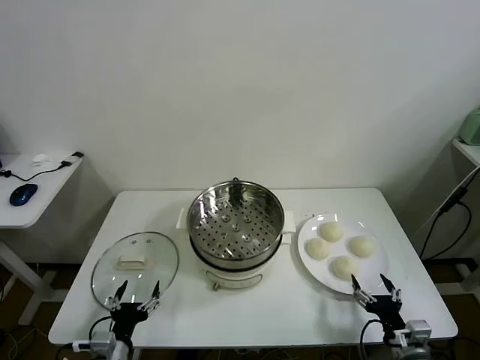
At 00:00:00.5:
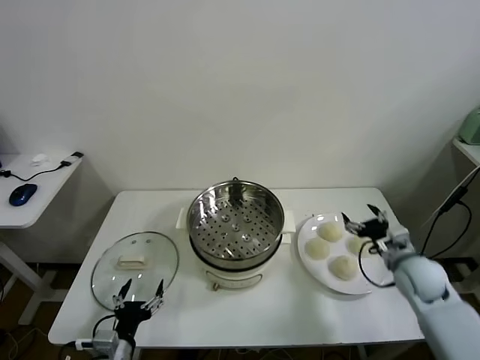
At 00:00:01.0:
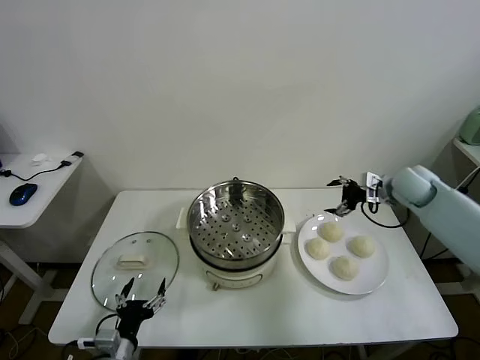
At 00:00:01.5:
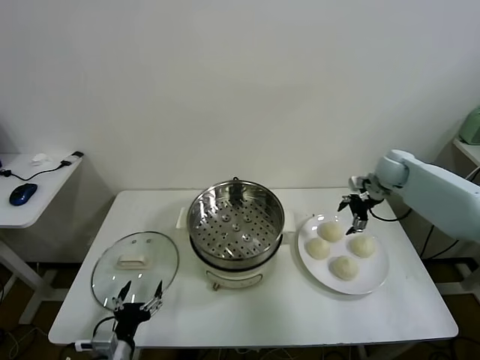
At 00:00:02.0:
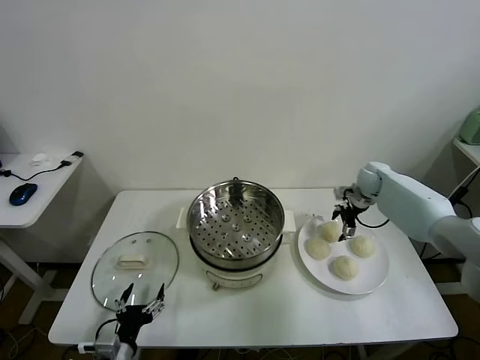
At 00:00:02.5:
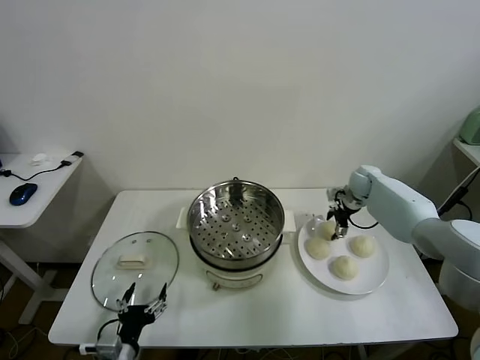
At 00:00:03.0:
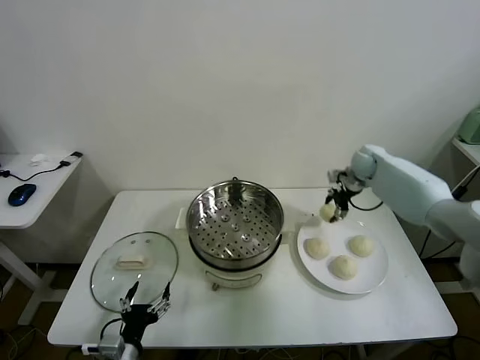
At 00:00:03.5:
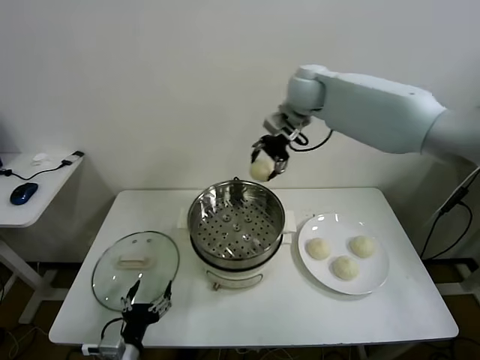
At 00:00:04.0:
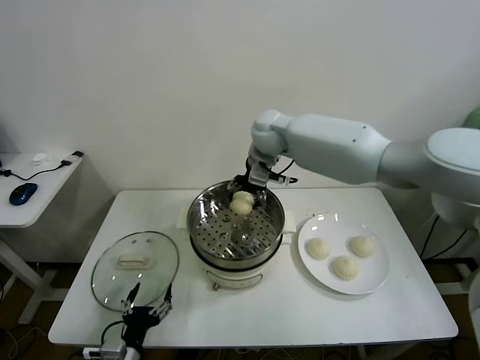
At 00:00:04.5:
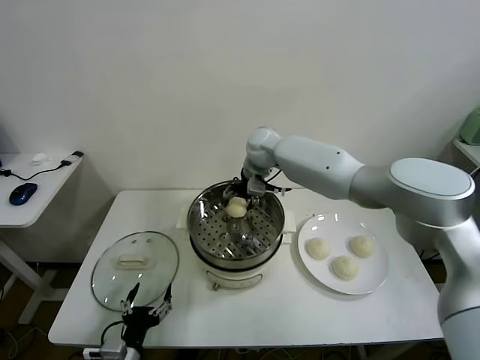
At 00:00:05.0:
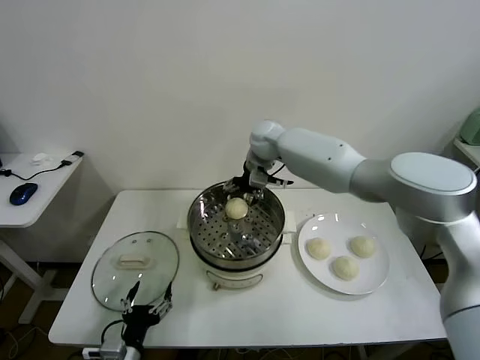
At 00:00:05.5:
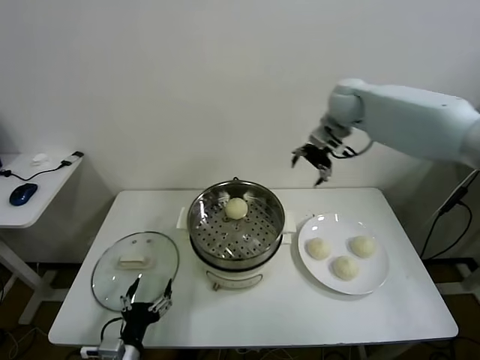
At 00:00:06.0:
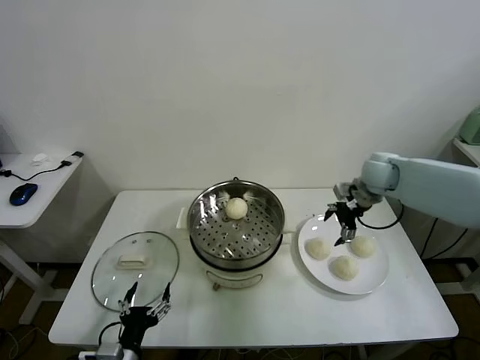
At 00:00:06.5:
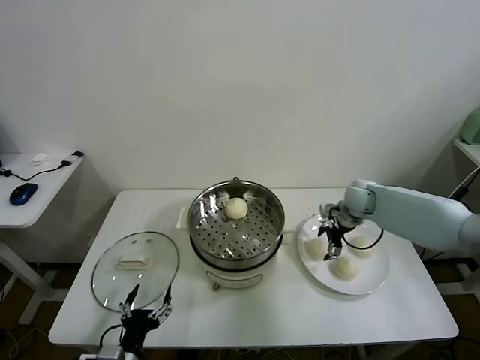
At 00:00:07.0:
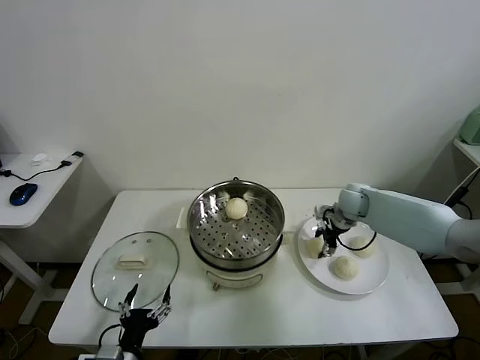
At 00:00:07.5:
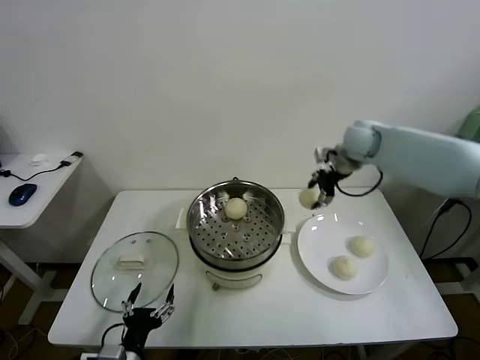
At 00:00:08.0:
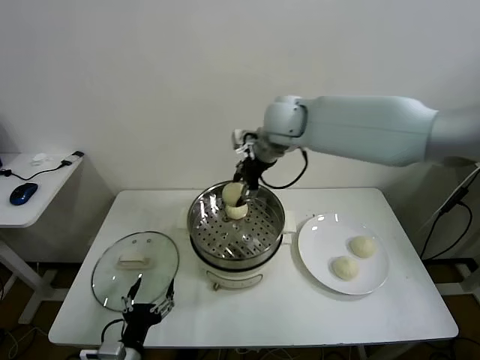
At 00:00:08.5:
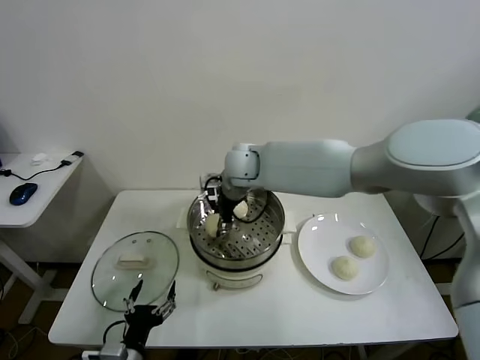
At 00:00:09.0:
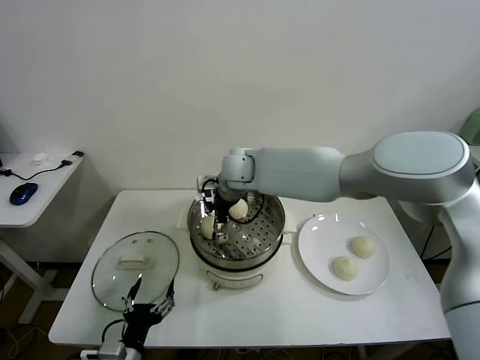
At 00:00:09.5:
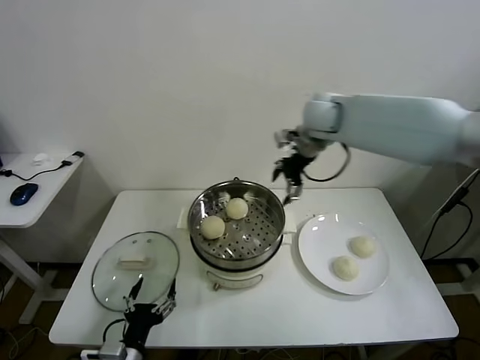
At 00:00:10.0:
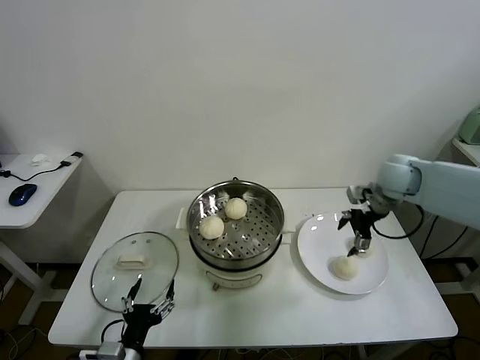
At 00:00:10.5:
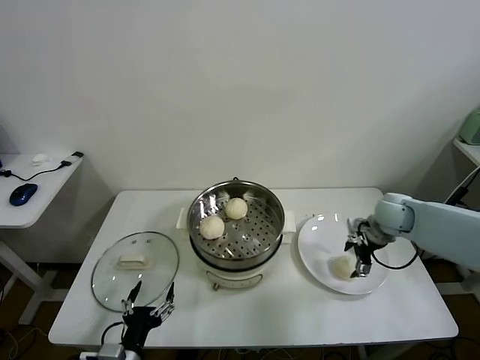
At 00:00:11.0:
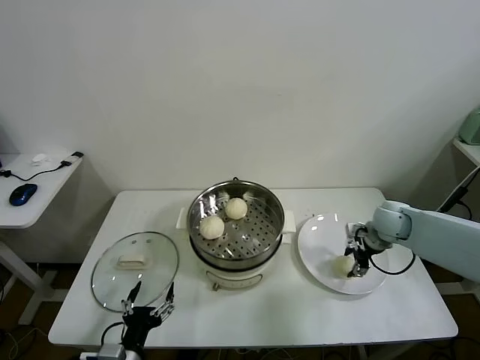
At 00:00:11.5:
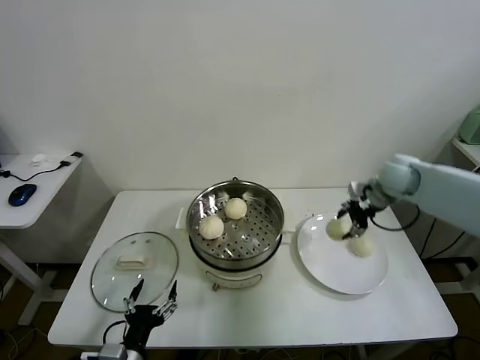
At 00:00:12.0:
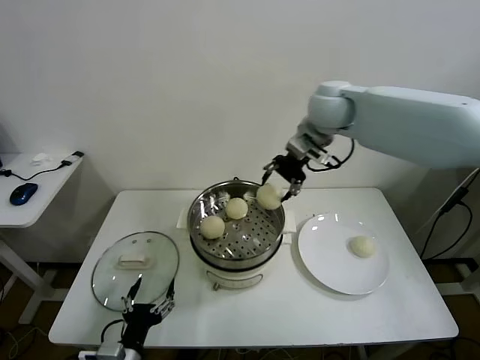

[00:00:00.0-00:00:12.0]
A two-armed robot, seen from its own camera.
Task of the whole recording: take steamed baozi put them in steamer.
Step, 00:00:00.0 to 00:00:02.5: Grasp the baozi in the plate with right gripper.
Step, 00:00:03.0 to 00:00:04.5: Place the baozi on the steamer with right gripper.
Step, 00:00:05.5 to 00:00:06.5: Grasp the baozi in the plate with right gripper.
Step, 00:00:07.5 to 00:00:09.0: Place the baozi on the steamer with right gripper.
Step, 00:00:09.5 to 00:00:11.0: Grasp the baozi in the plate with right gripper.
00:00:02.0 to 00:00:04.0: The right gripper is displaced to the left and upward by about 35 cm, and closes up.
00:00:04.0 to 00:00:06.0: The right gripper moves to the right, roughly 25 cm, and opens up.
00:00:06.0 to 00:00:08.0: The right gripper travels to the left and upward by some 30 cm, and closes its fingers.
00:00:08.0 to 00:00:10.0: The right gripper is displaced to the right and downward by approximately 30 cm, and opens.
00:00:10.0 to 00:00:12.0: The right gripper travels to the left and upward by roughly 25 cm, and closes up.

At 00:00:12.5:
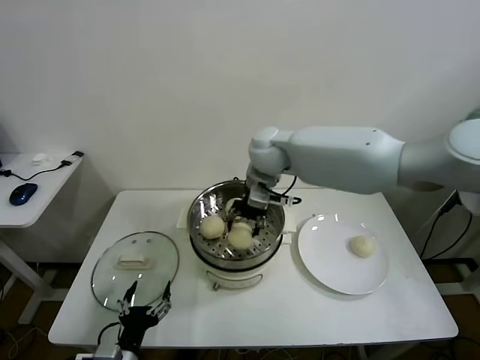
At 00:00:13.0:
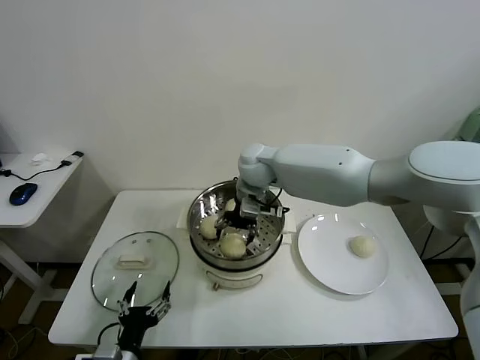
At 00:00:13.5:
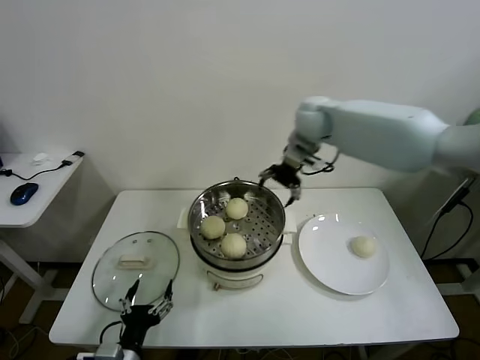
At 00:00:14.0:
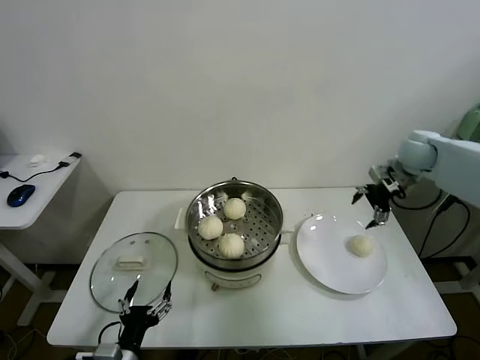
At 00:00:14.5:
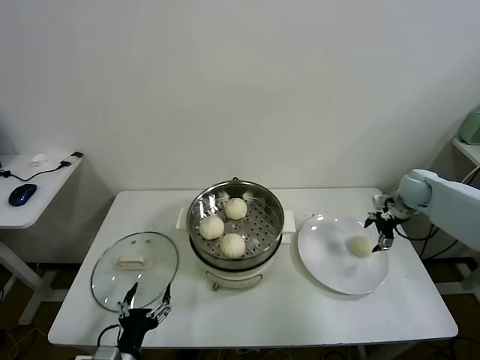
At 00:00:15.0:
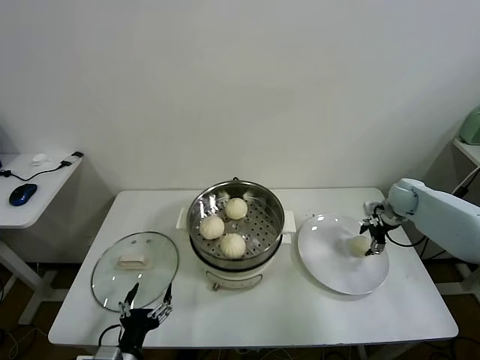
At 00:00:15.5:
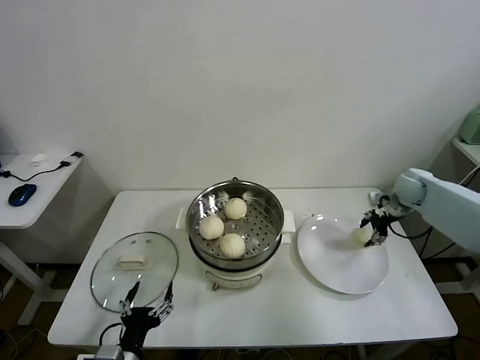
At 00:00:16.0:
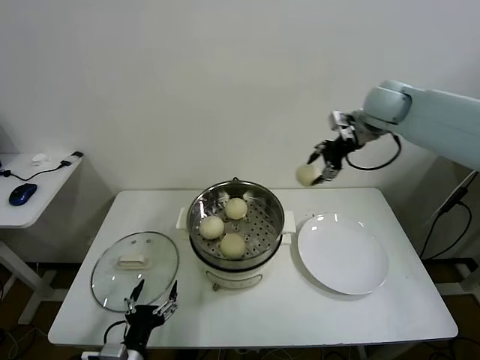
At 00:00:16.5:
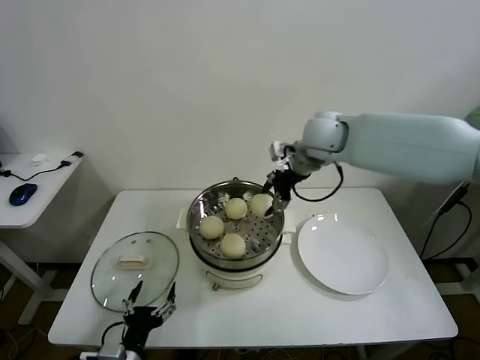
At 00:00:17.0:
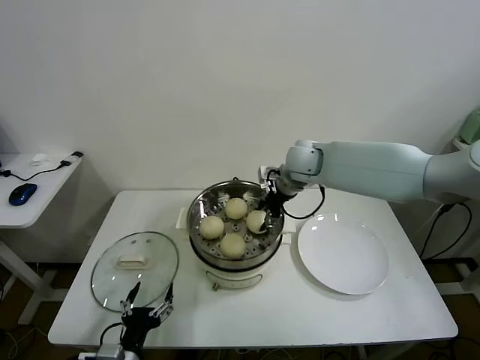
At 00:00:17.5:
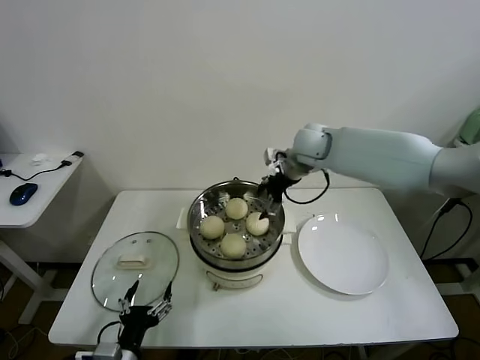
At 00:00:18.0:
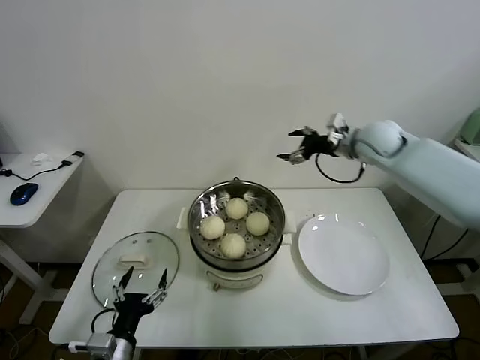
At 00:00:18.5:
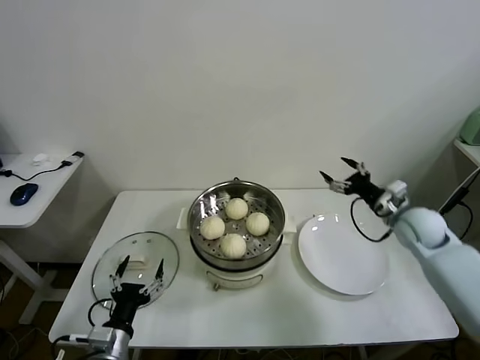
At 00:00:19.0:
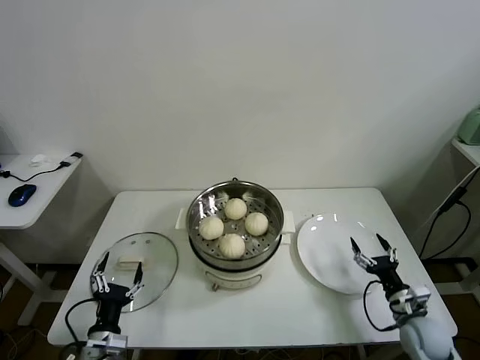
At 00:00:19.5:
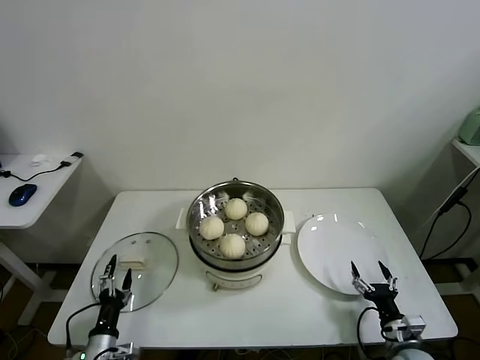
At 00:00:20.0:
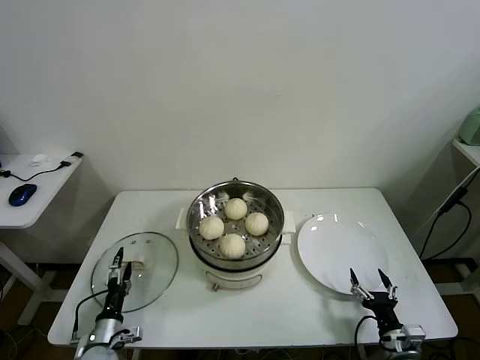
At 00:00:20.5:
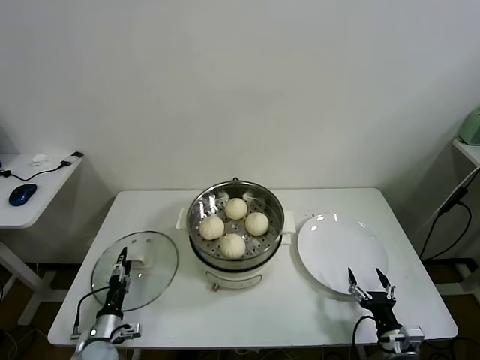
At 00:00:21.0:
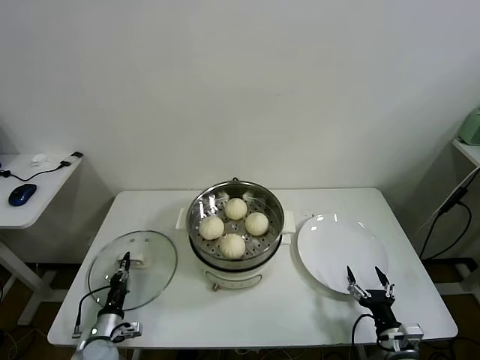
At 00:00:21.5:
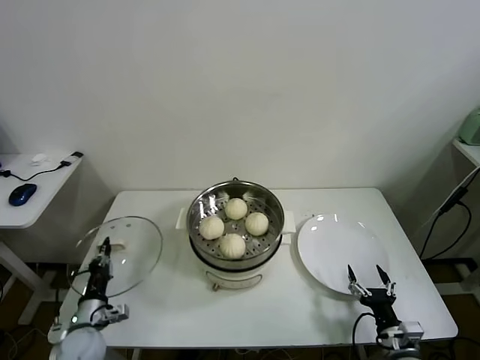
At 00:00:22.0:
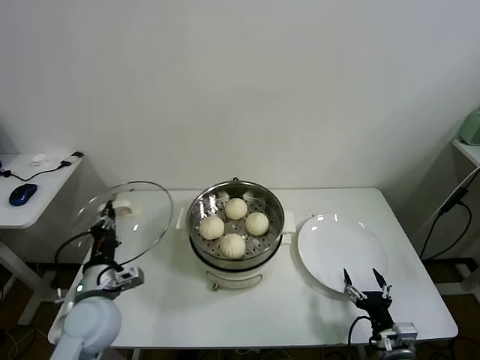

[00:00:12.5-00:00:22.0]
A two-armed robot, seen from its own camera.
Task of the whole recording: take steamed baozi put them in steamer.
Step, 00:00:13.5 to 00:00:15.0: Grasp the baozi in the plate with right gripper.
Step, 00:00:15.5 to 00:00:17.0: Place the baozi on the steamer with right gripper.
Step, 00:00:18.0 to 00:00:21.0: Grasp the pot lid with left gripper.
00:00:12.5 to 00:00:14.5: The right gripper travels to the right by roughly 40 cm, and opens up.
00:00:14.5 to 00:00:16.5: The right gripper is displaced to the left and upward by roughly 35 cm, and closes.
00:00:16.5 to 00:00:18.0: The right gripper travels to the right by approximately 15 cm, and opens up.
00:00:18.0 to 00:00:20.0: The left gripper shifts some 20 cm downward, to the left and forward. Meanwhile the right gripper is displaced backward and downward by about 50 cm.
00:00:20.0 to 00:00:22.0: The left gripper goes roughly 20 cm upward, and closes up.

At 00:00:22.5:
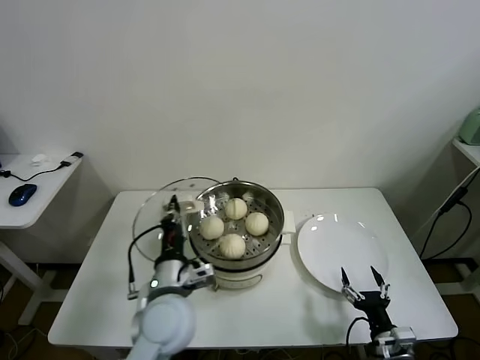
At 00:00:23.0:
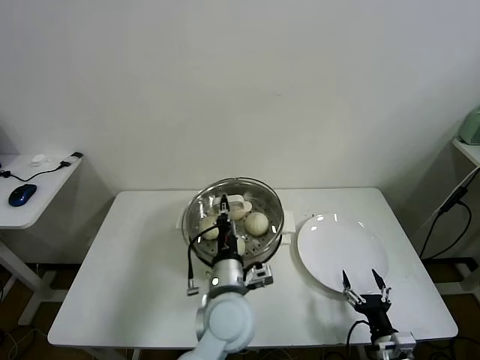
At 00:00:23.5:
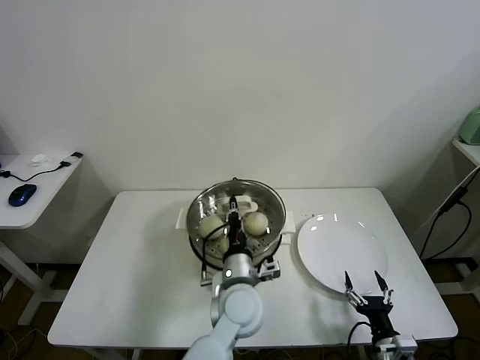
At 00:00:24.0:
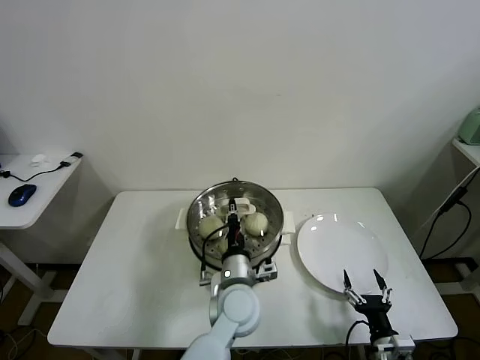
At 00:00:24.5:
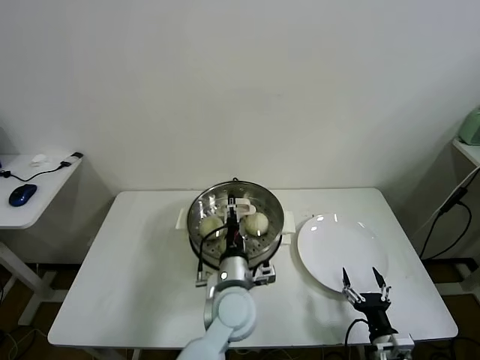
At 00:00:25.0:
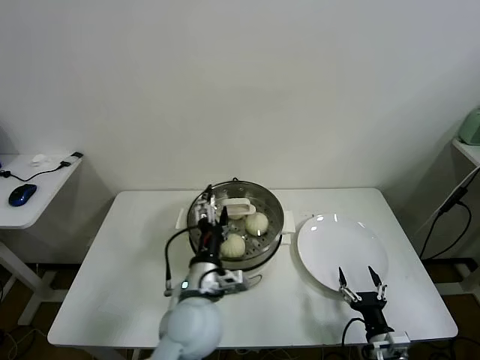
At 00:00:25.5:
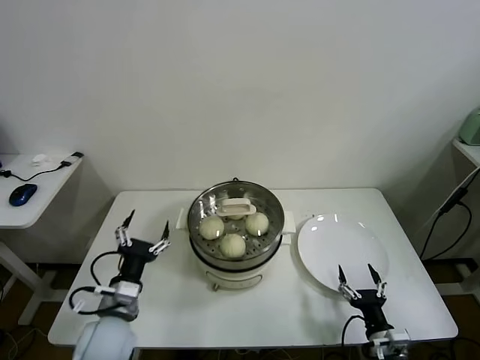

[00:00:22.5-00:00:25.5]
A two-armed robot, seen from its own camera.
Task of the whole recording: take steamed baozi put them in steamer.
Step, 00:00:22.5 to 00:00:24.5: Place the pot lid on the steamer with left gripper.
00:00:22.5 to 00:00:24.0: The left gripper moves to the right, roughly 15 cm.
00:00:24.0 to 00:00:25.5: The left gripper heads to the left, covering roughly 25 cm, and opens its fingers.
